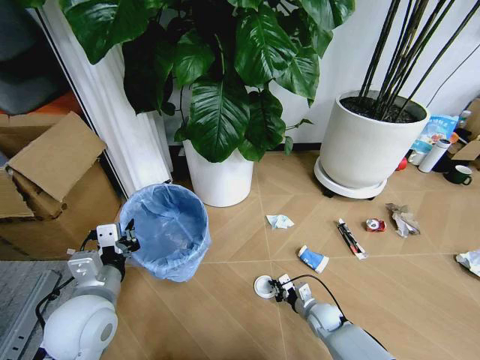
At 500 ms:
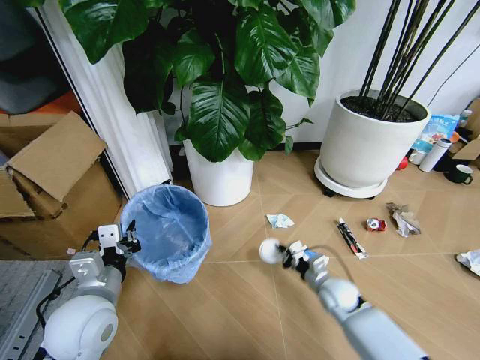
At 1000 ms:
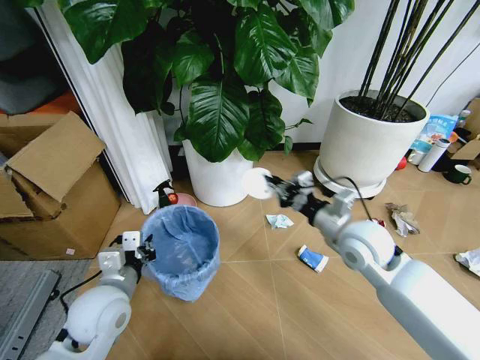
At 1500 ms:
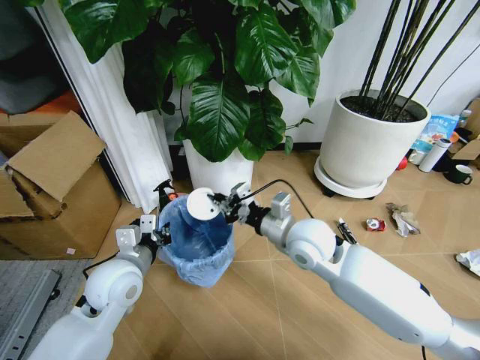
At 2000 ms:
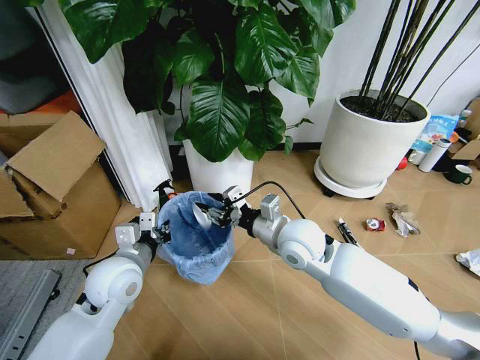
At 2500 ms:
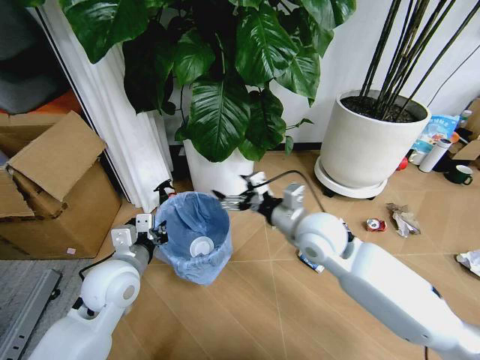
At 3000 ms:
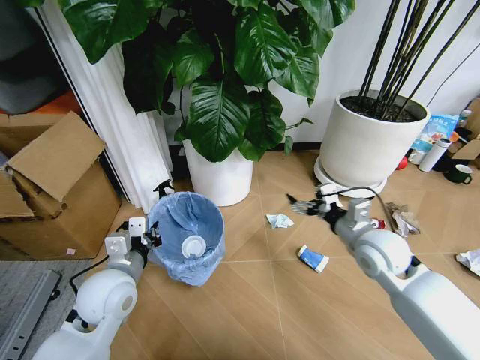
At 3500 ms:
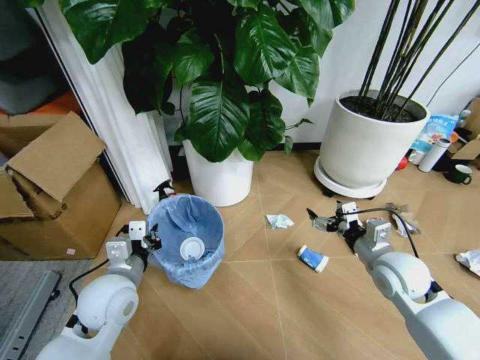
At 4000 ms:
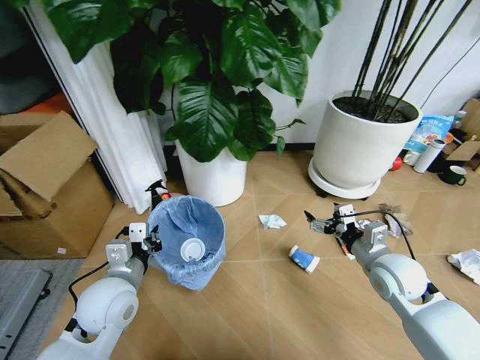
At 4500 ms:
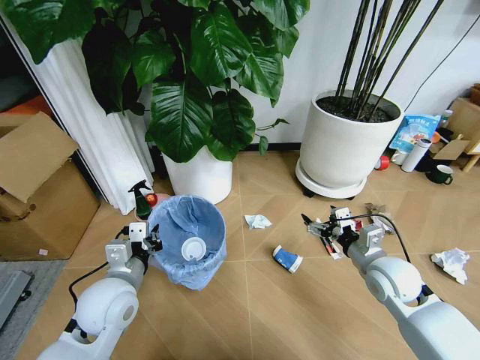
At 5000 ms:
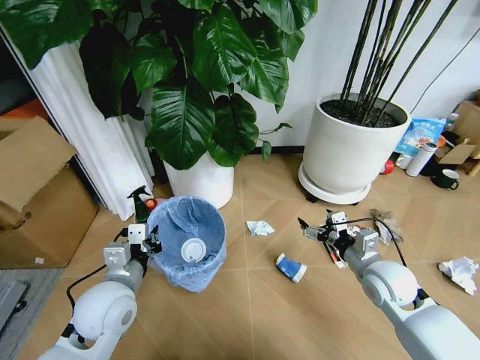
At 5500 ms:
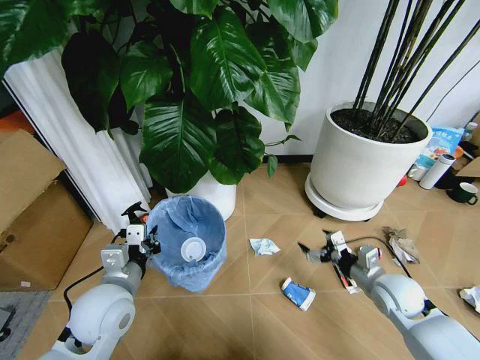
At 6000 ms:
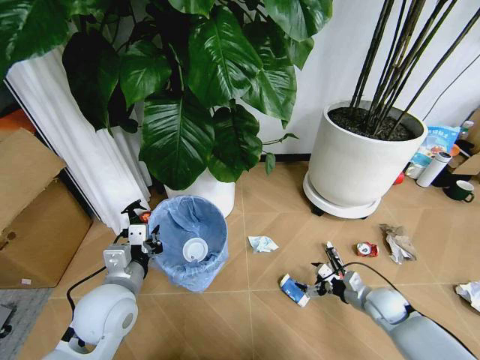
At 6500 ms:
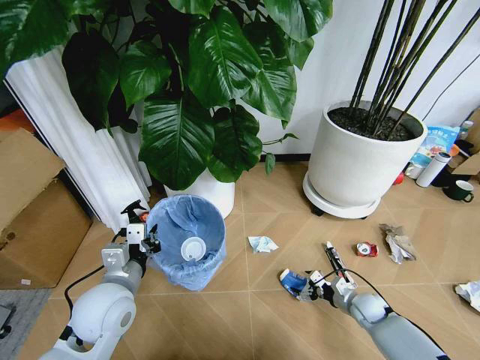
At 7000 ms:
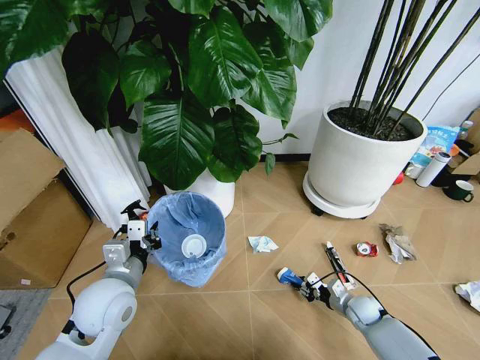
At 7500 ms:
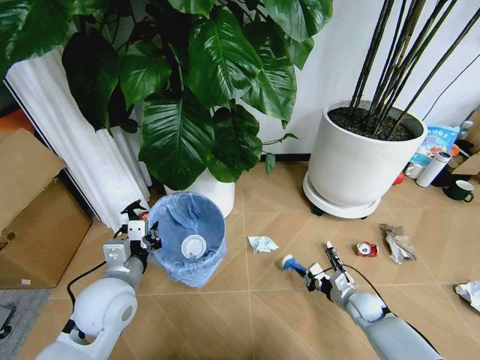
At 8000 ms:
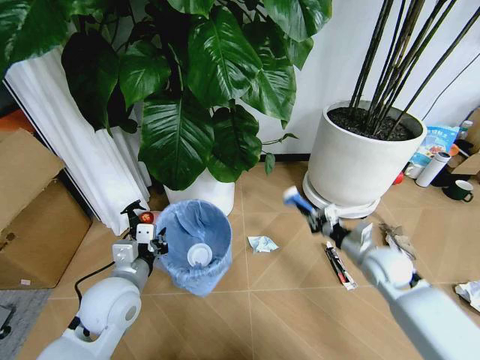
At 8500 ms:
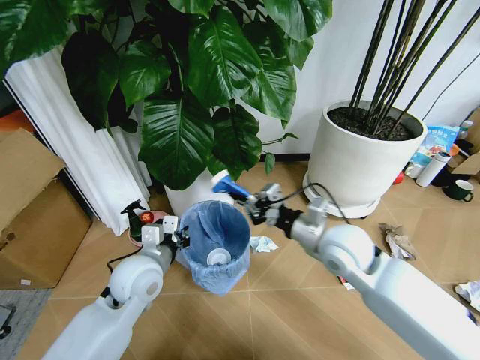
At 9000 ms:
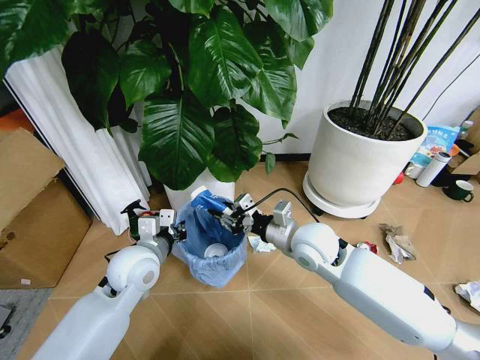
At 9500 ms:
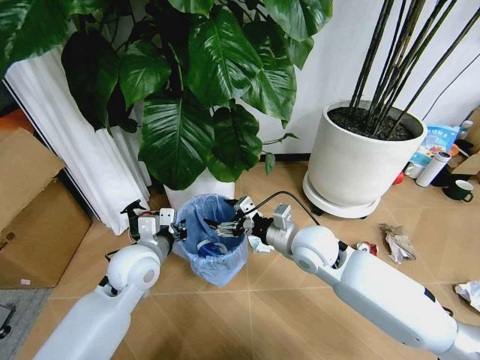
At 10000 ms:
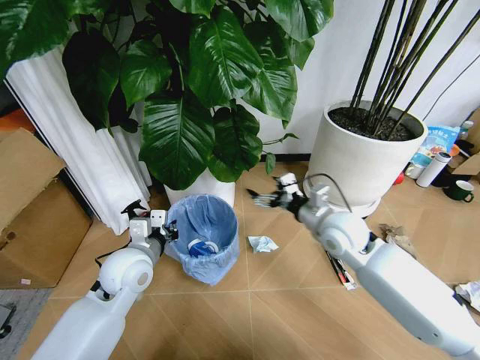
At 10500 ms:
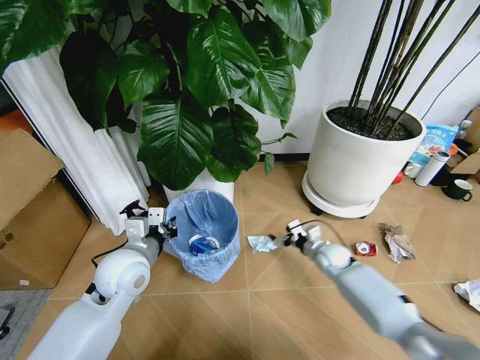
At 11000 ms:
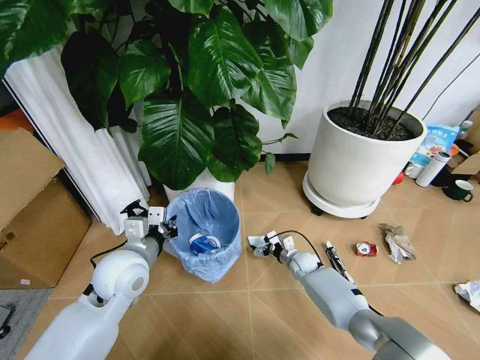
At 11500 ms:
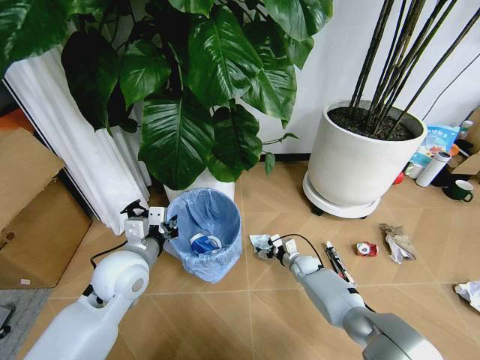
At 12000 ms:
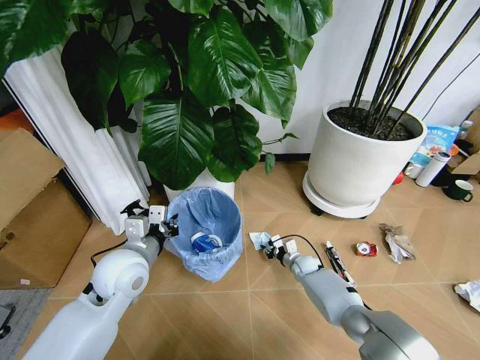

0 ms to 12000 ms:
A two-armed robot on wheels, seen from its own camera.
Task of the whole recording: Pick up the trash bin and place the garbage on the floor into it.
0 ms to 2000 ms: The left gripper goes roughly 10 cm forward; the right gripper moves upward, some 35 cm, and opens.
2000 ms to 4000 ms: The right gripper moves to the right, about 20 cm, and opens up.
4000 ms to 6000 ms: The right gripper shifts roughly 20 cm downward.
6000 ms to 8000 ms: The right gripper shifts some 15 cm upward, and closes its fingers.
8000 ms to 10000 ms: The left gripper shifts some 5 cm forward. Meanwhile the right gripper shifts some 15 cm to the left and upward, and opens.
10000 ms to 12000 ms: The right gripper is displaced downward by approximately 30 cm, and closes its fingers.

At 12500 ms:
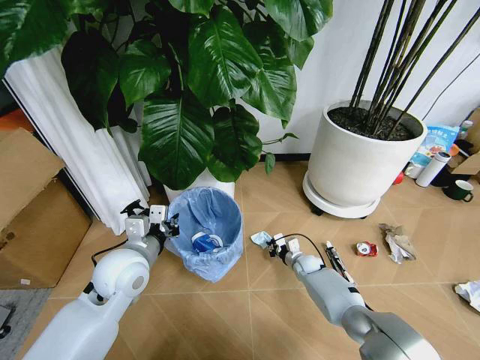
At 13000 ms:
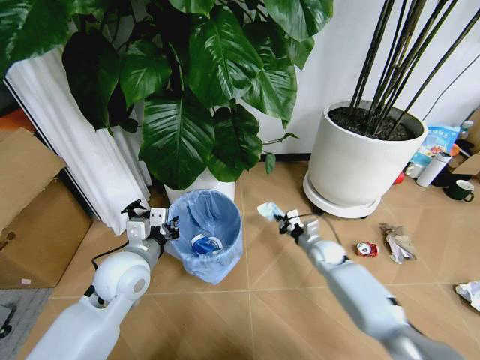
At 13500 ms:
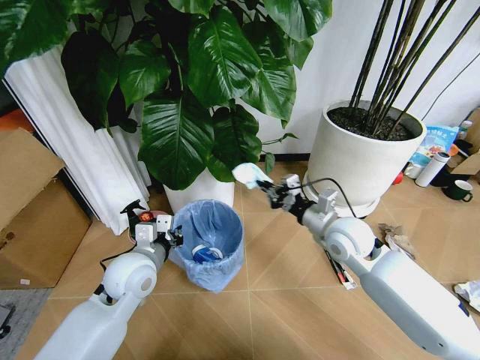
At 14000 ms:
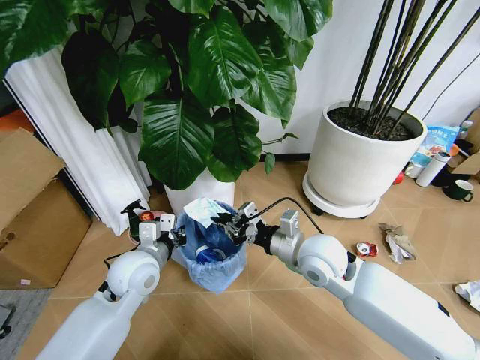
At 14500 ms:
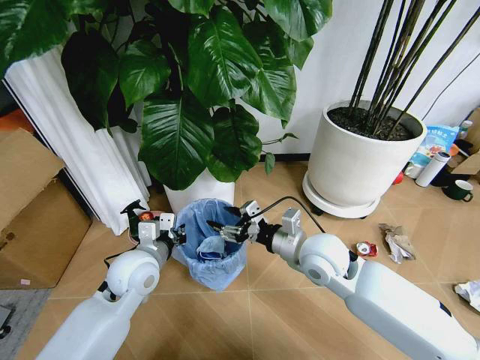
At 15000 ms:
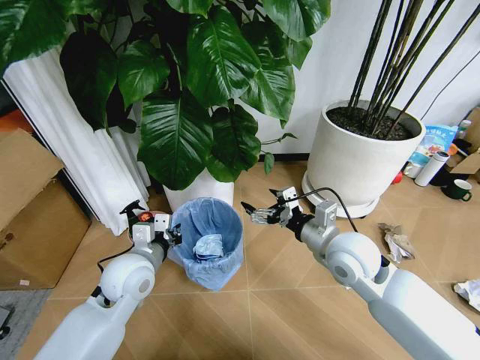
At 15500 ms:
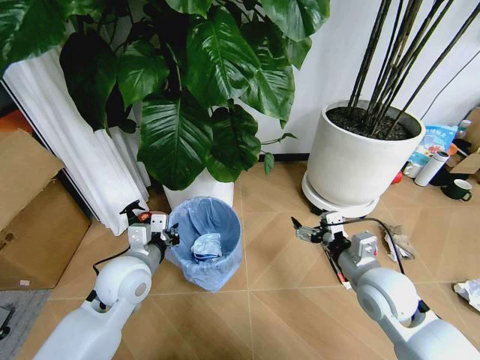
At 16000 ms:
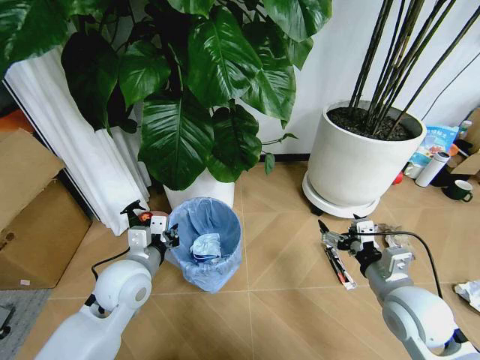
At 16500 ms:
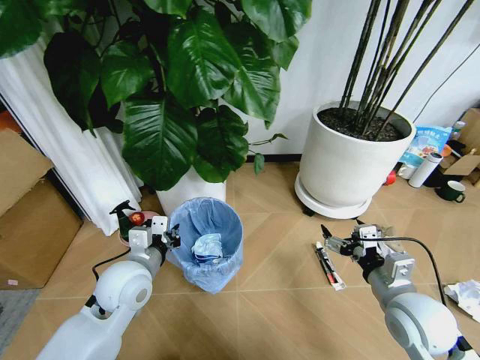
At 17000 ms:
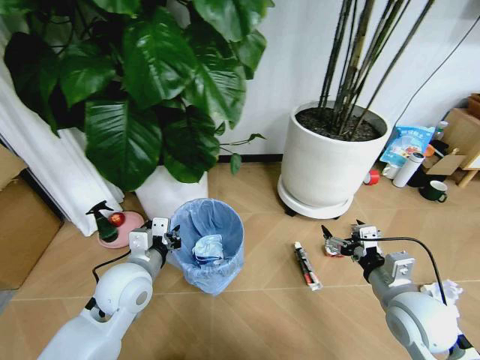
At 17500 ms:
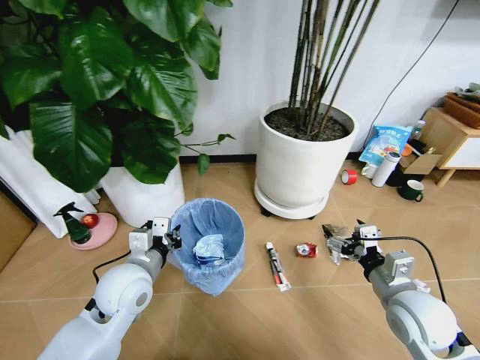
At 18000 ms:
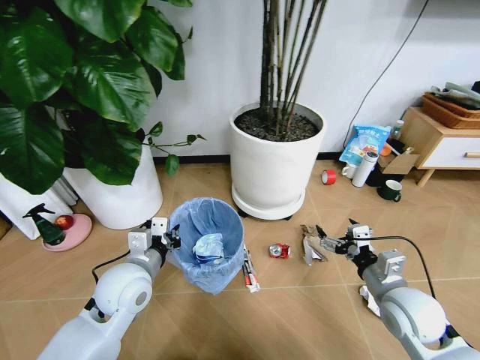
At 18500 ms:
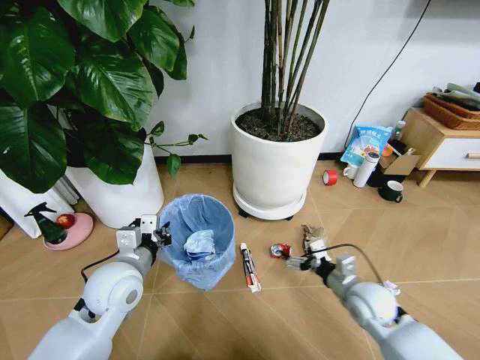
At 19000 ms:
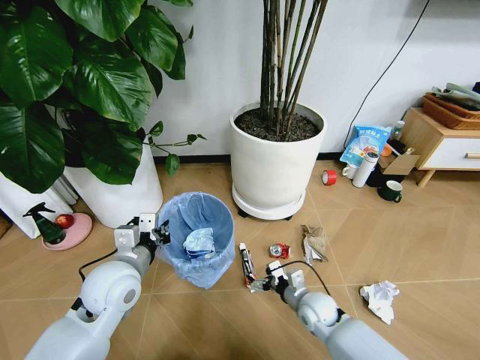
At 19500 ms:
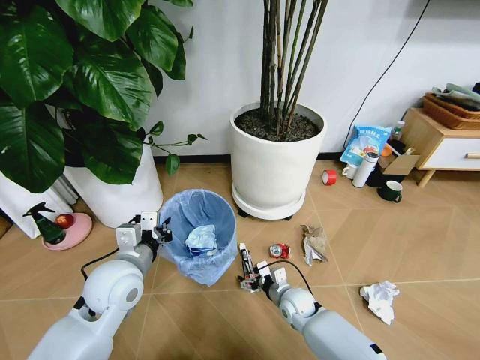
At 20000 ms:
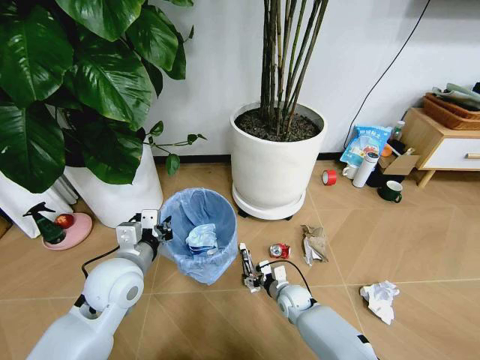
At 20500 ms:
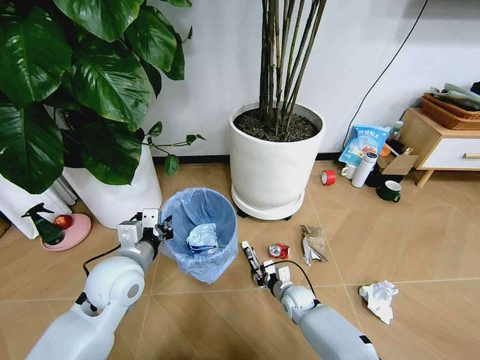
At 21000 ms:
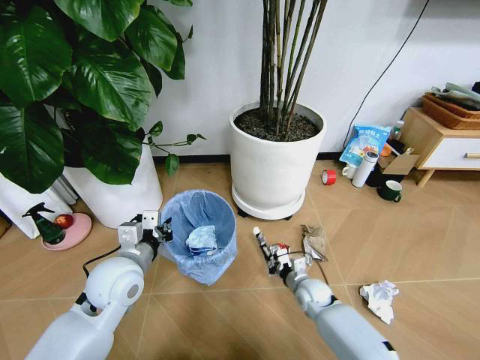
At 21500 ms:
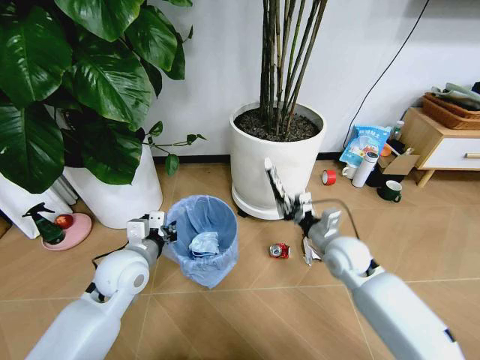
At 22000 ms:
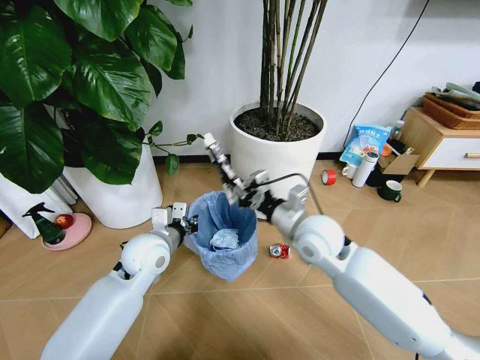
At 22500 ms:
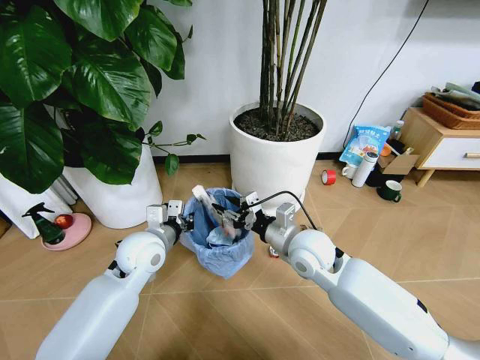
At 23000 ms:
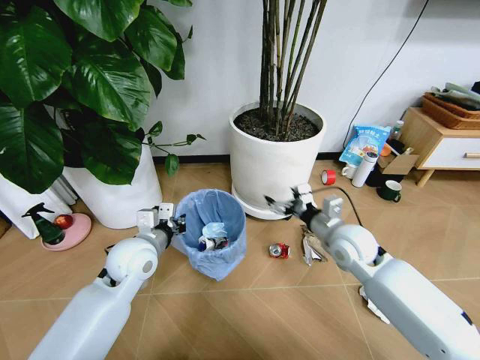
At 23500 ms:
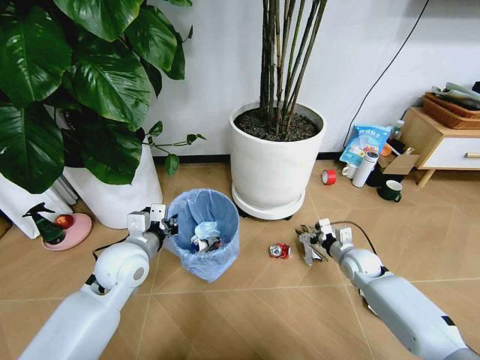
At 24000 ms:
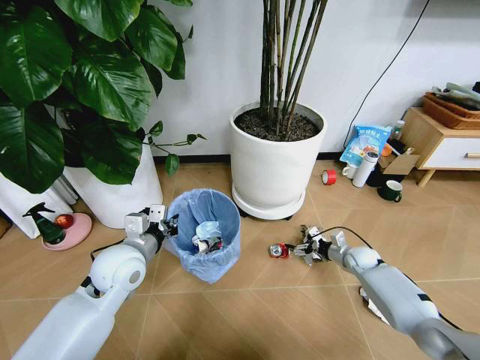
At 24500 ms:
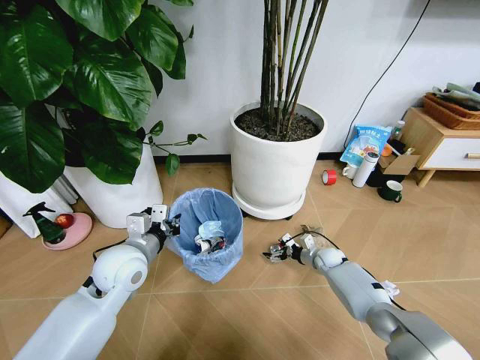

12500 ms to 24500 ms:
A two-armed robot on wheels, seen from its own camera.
Task of the whole recording: Pick up the trash bin and place the garbage on the floor into it.
12500 ms to 14500 ms: The right gripper heads upward and backward, covering roughly 35 cm, and opens.
14500 ms to 16500 ms: The right gripper travels to the right and backward by roughly 20 cm.
16500 ms to 18500 ms: The right gripper goes roughly 15 cm downward and forward.
18500 ms to 20500 ms: The right gripper is displaced downward and to the left by some 20 cm, and closes.
20500 ms to 22500 ms: The left gripper moves forward, some 5 cm. The right gripper heads upward, covering roughly 30 cm.
22500 ms to 24500 ms: The right gripper shifts some 35 cm downward, to the right and forward, and opens up.

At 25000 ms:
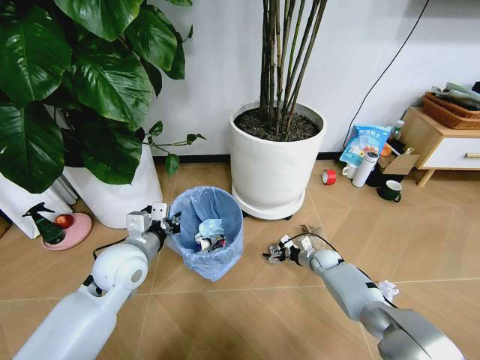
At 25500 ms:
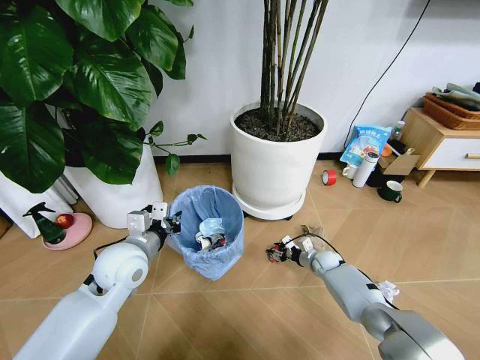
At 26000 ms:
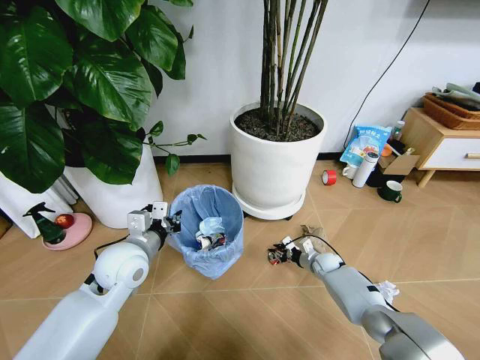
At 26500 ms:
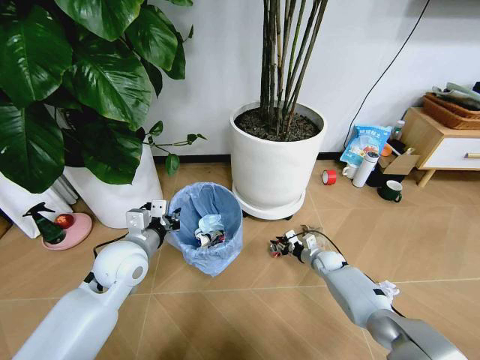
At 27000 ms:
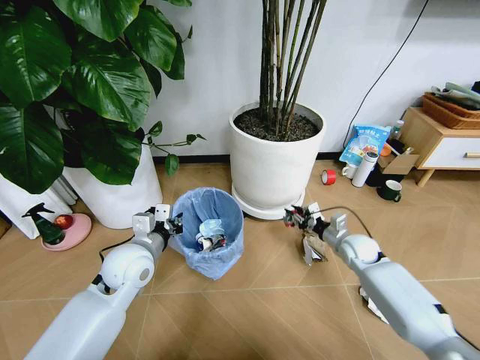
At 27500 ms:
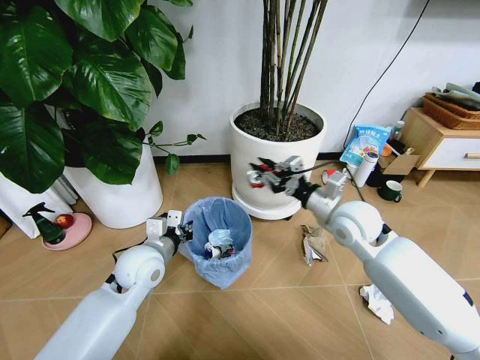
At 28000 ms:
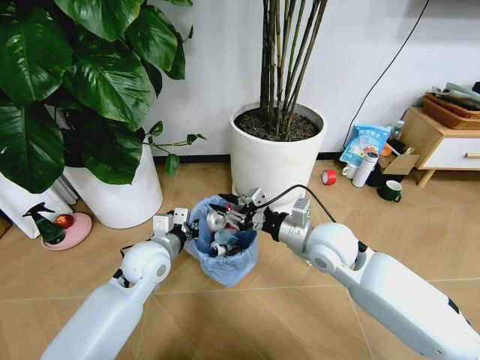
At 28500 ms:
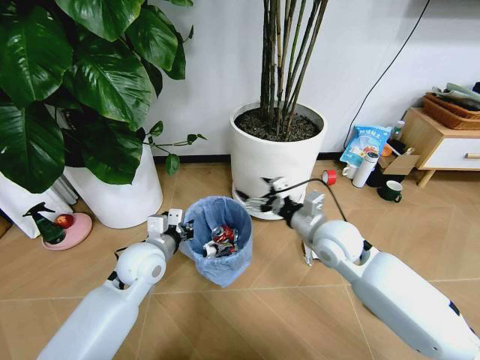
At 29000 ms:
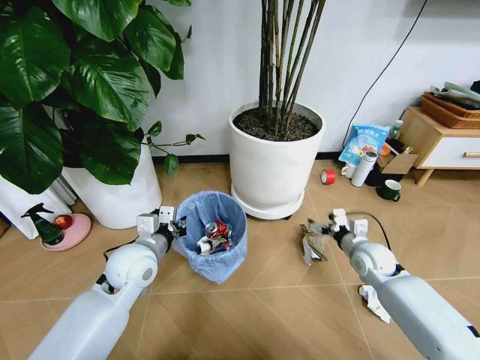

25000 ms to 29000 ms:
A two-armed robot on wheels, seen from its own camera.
Task of the whole recording: Pick up the trash bin and place the garbage on the floor into it.
25000 ms to 27000 ms: The right gripper travels upward by roughly 10 cm, and closes.
27000 ms to 29000 ms: The right gripper goes upward and returns, about 20 cm each way, and opens.
